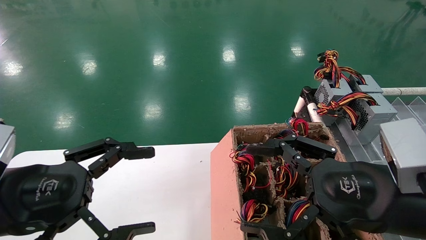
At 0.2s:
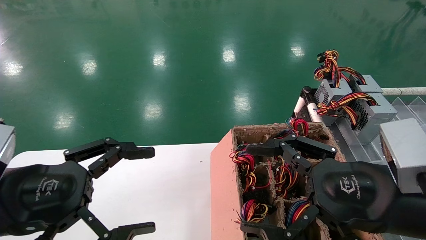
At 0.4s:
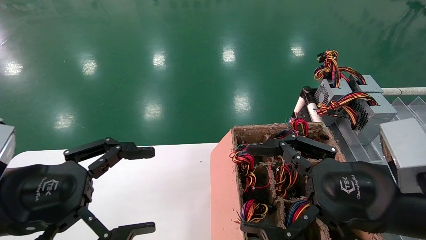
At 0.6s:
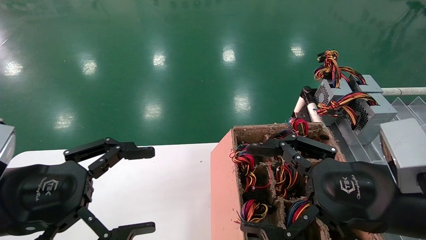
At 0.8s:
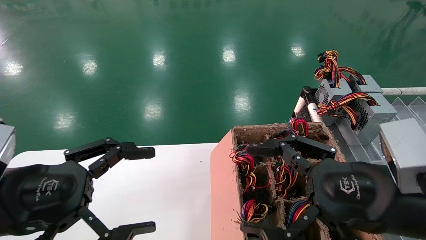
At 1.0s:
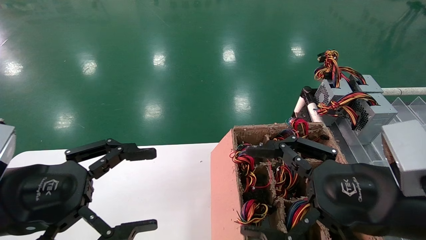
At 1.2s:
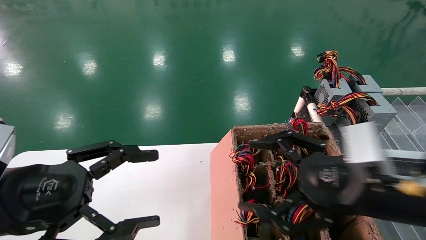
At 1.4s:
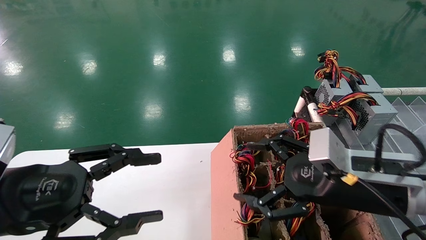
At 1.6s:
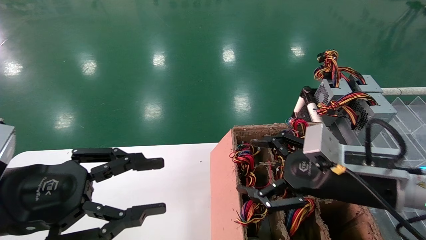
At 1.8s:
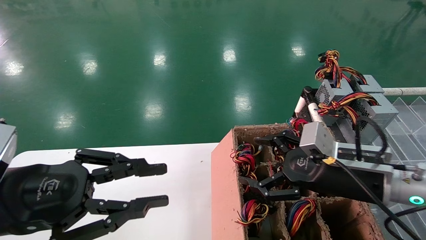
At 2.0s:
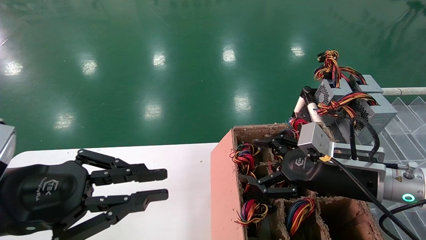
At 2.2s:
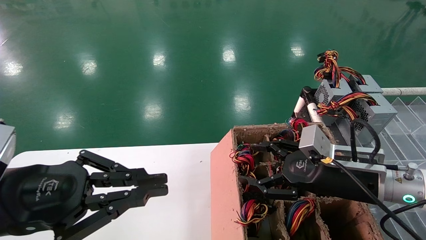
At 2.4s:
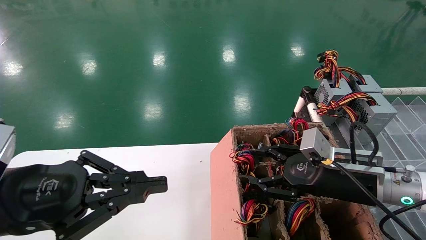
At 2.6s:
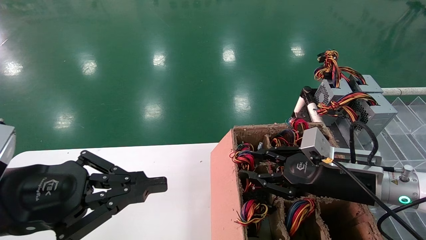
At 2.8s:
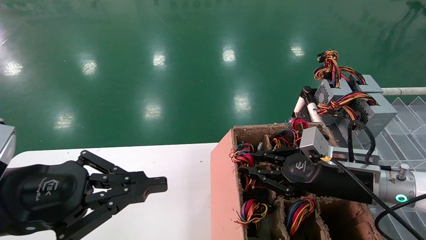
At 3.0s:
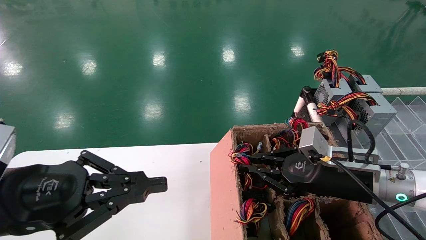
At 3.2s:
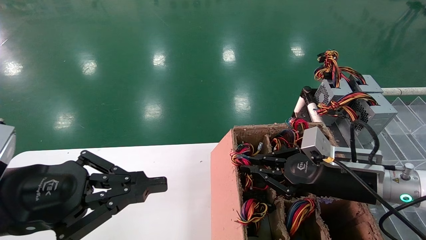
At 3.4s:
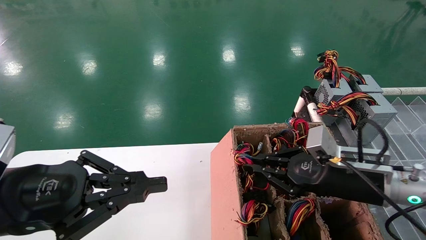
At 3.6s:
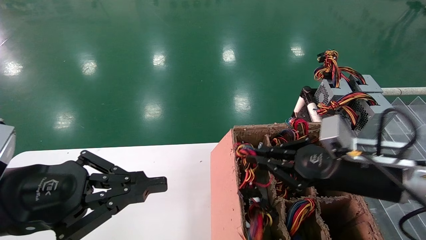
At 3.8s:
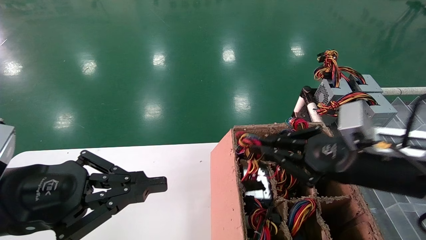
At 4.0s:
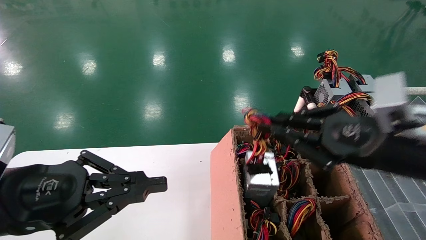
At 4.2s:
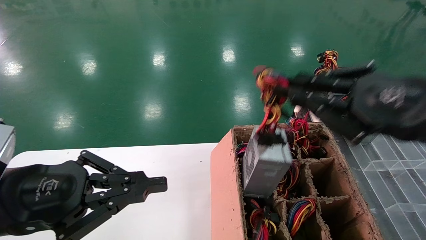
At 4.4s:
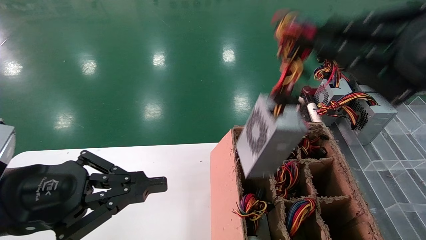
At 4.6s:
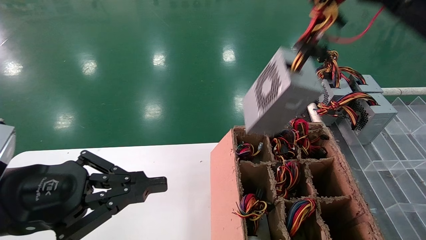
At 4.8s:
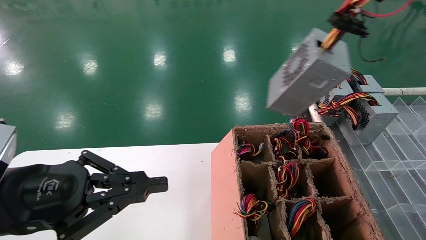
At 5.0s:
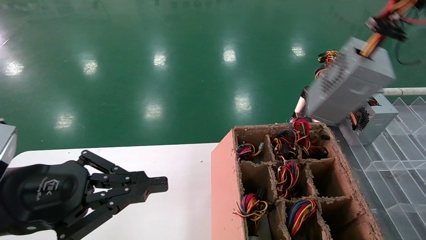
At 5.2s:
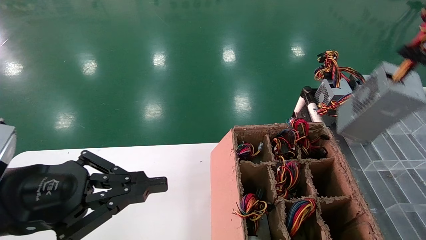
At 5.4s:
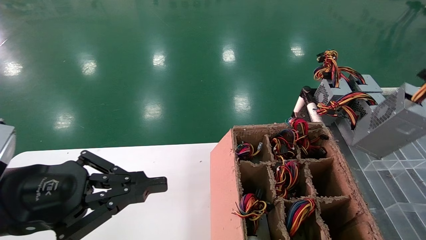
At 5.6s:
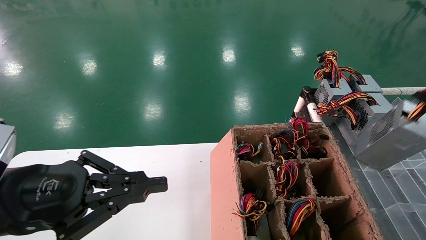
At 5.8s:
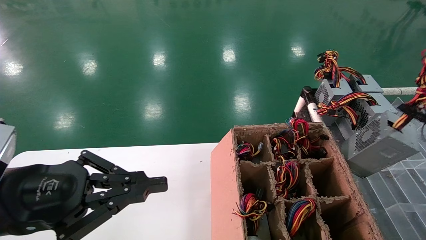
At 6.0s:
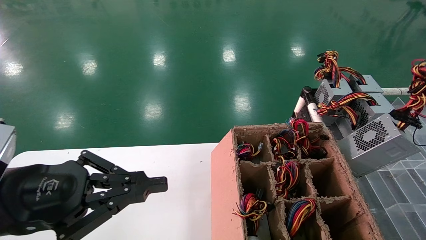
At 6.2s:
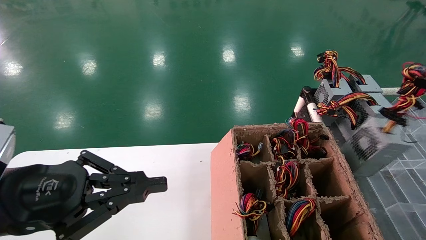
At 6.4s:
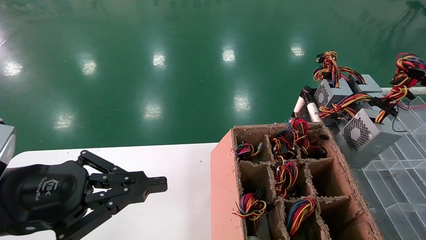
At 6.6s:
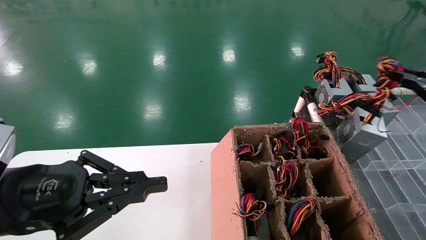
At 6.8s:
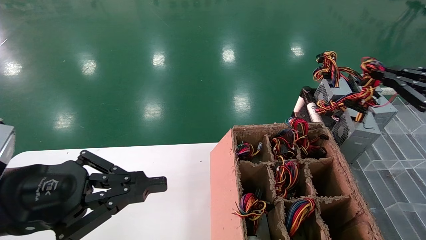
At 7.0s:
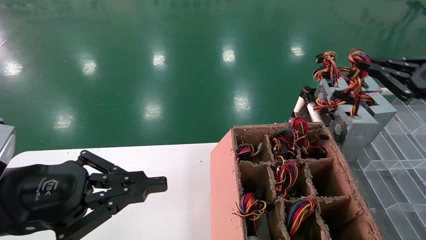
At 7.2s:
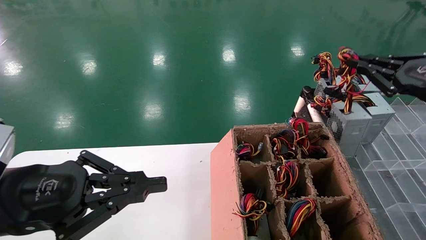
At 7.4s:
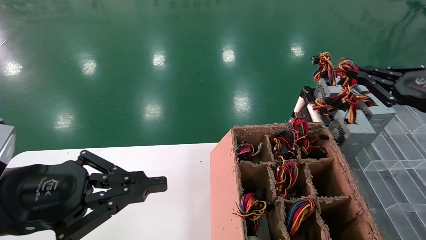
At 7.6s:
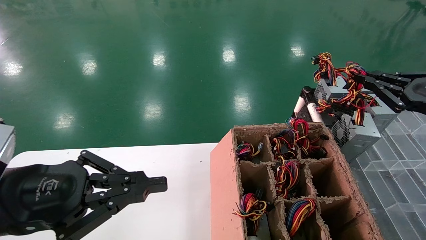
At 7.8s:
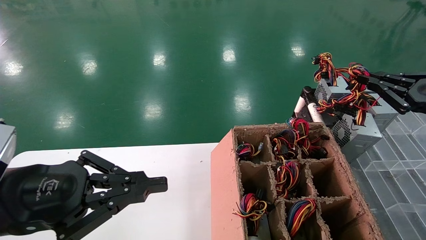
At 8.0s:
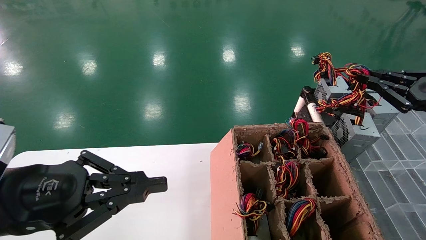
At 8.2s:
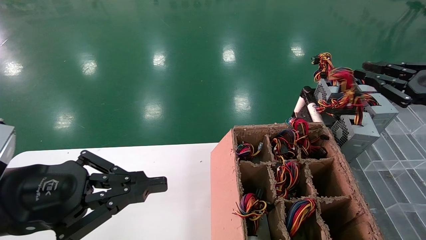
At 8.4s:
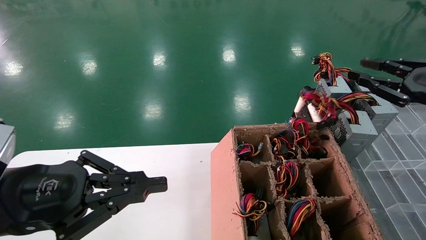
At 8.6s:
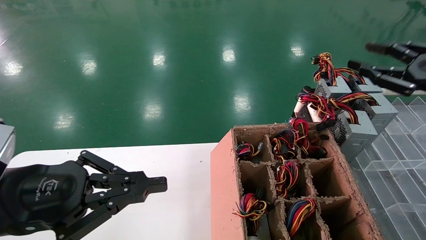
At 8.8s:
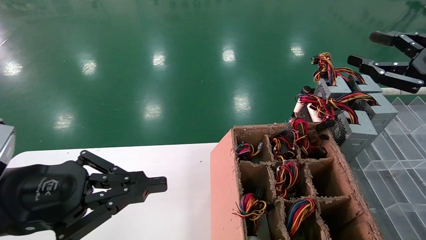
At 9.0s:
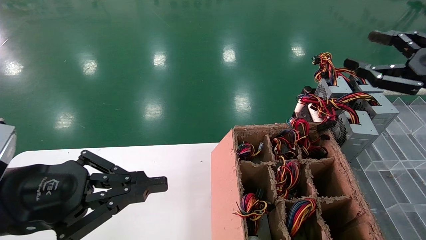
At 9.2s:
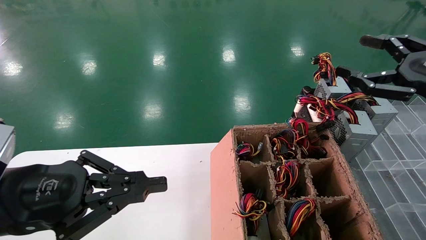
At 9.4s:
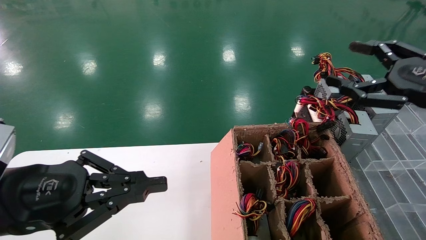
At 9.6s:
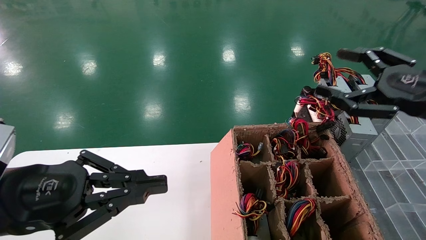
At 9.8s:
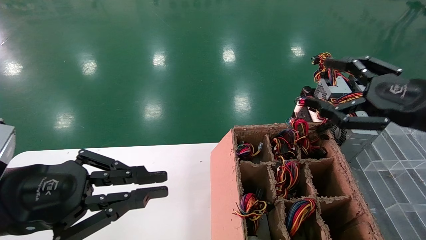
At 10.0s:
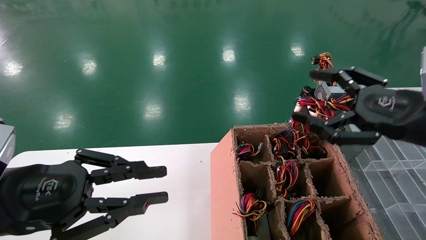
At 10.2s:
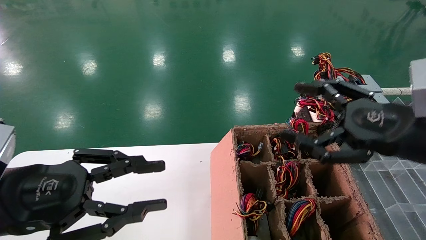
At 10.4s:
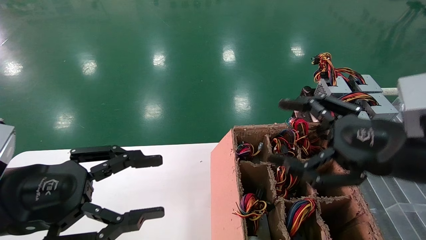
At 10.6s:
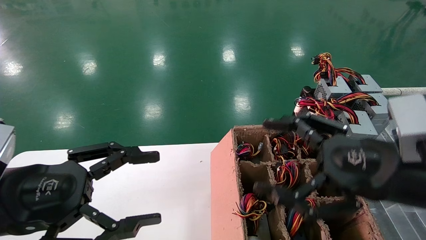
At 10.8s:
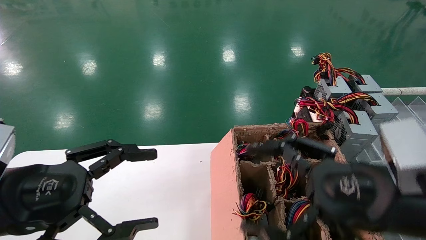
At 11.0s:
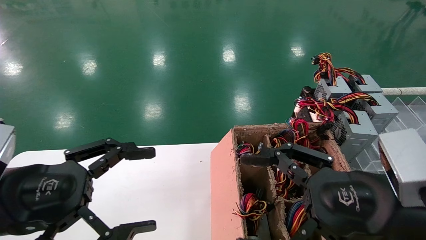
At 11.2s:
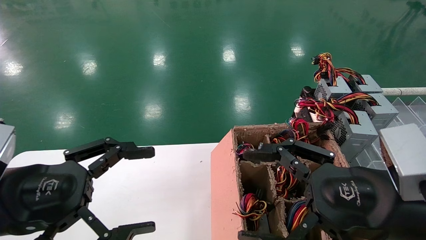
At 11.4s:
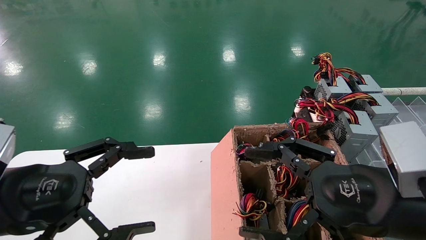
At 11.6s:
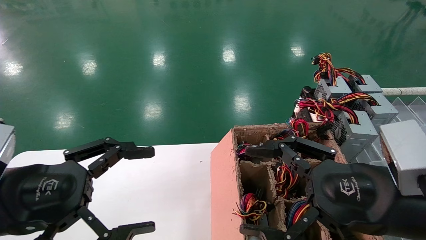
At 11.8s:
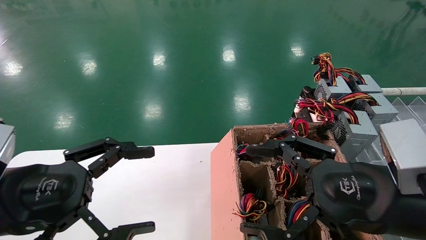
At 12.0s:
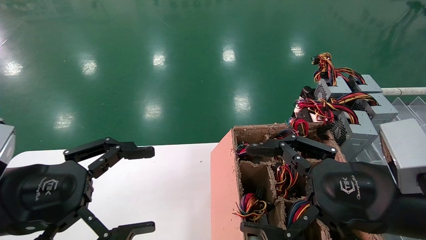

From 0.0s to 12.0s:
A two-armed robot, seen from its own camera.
Step, from 1.4s to 3.2s: Grab the main unit power supply from the containment box.
Step, from 3.4s to 8.0s: Place the main unit power supply in the designated area.
From 0.0s to 1.6s: The right gripper is displaced forward by some 10 cm. The left gripper closes.
From 1.6s to 3.0s: The right gripper ends up roughly 5 cm from where it was, and closes its fingers; the left gripper closes up.
From 3.0s to 4.4s: The right gripper goes roughly 25 cm upward and backward.
From 4.4s to 6.0s: The right gripper travels to the right by roughly 20 cm.
From 6.0s to 7.6s: The right gripper heads forward, covering some 10 cm.
From 7.6s to 9.0s: The right gripper moves about 5 cm, and opens.
From 9.0s to 10.4s: The left gripper opens its fingers; the right gripper is displaced to the left and downward by approximately 15 cm.
From 10.4s to 12.0s: The left gripper opens. The right gripper changes place by some 5 cm.

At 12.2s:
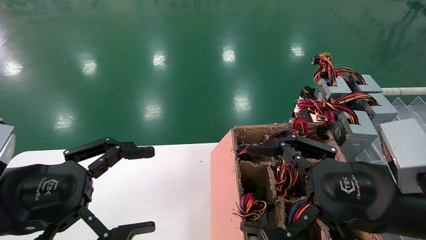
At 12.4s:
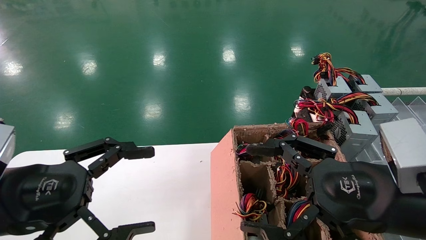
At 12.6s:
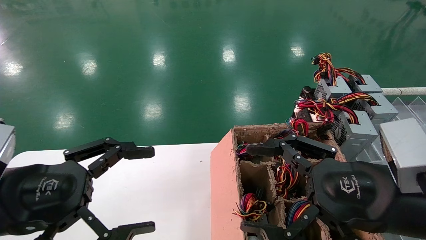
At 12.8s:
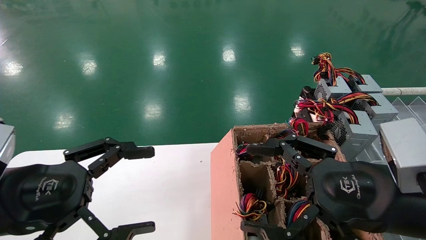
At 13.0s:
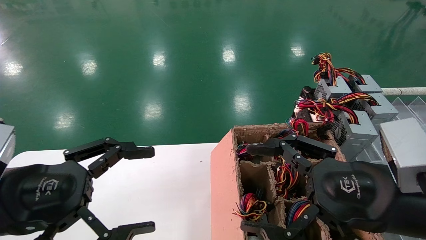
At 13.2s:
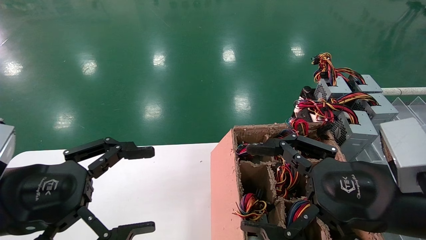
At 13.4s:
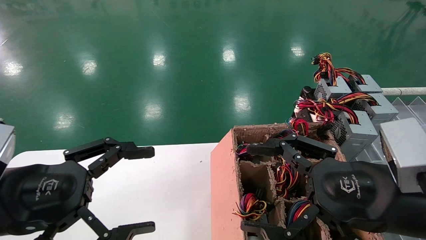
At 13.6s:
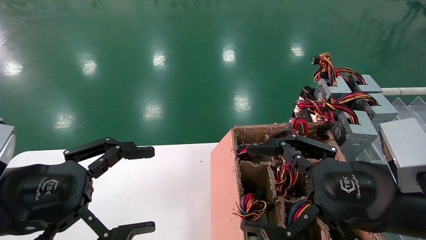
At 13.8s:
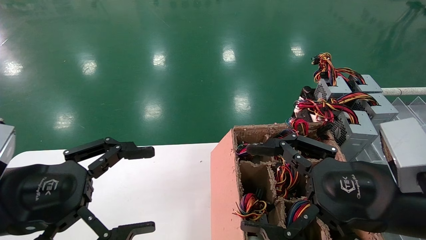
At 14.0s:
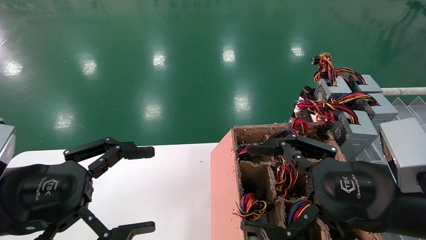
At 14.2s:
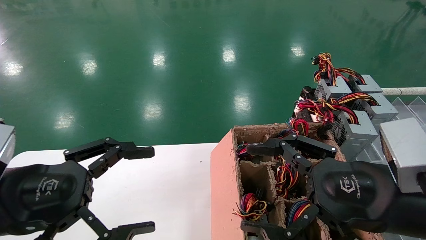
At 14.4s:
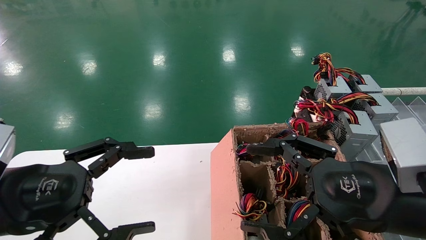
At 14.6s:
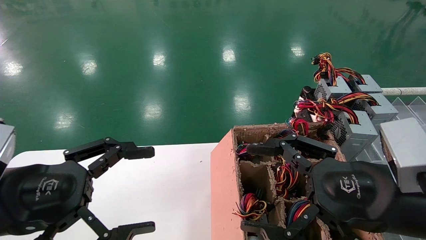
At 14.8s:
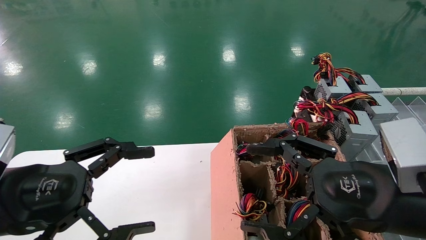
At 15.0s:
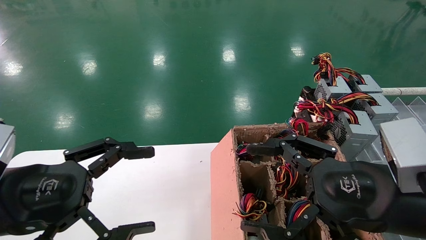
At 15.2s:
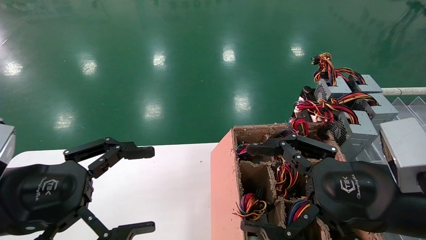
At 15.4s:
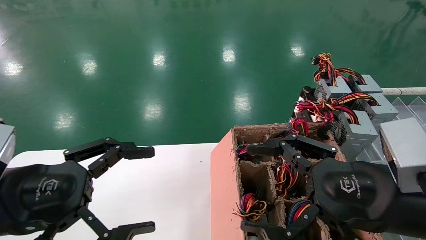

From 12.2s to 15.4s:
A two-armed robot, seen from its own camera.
From 12.2s to 15.4s: Neither gripper changes place.
